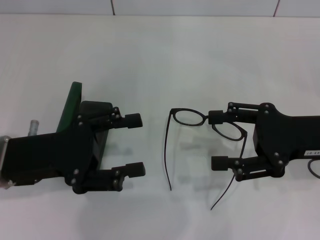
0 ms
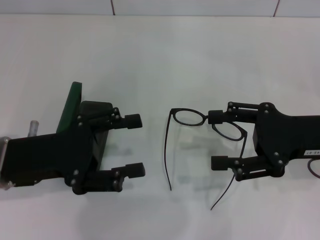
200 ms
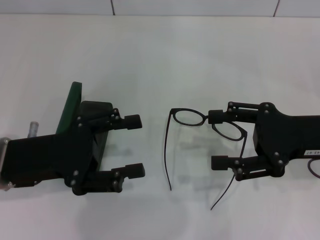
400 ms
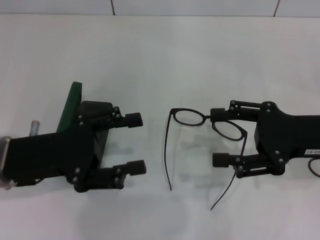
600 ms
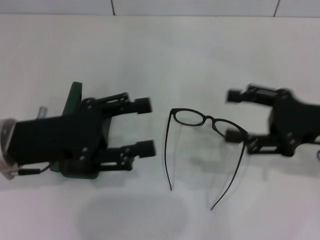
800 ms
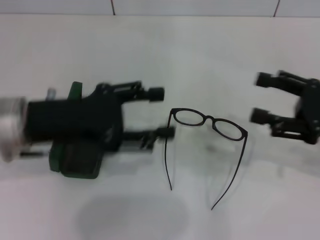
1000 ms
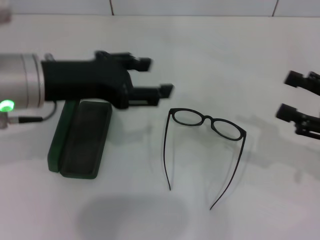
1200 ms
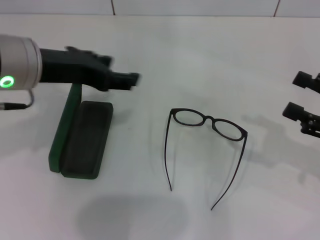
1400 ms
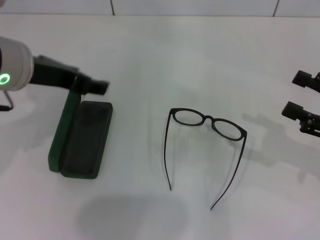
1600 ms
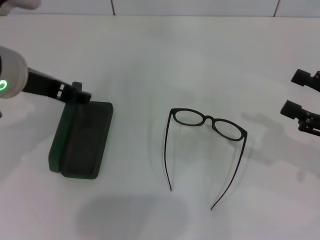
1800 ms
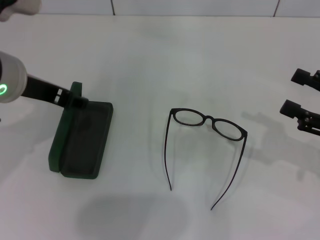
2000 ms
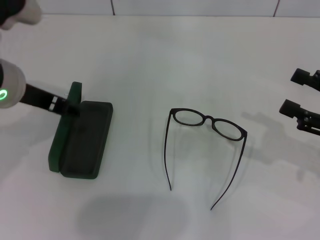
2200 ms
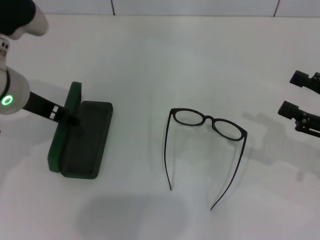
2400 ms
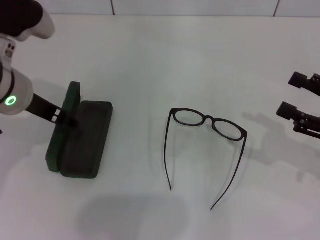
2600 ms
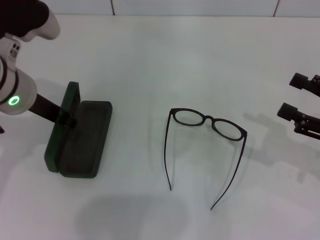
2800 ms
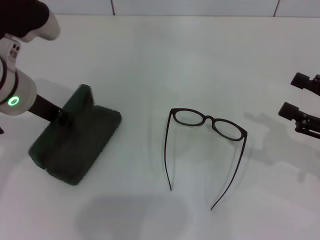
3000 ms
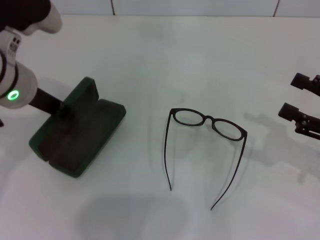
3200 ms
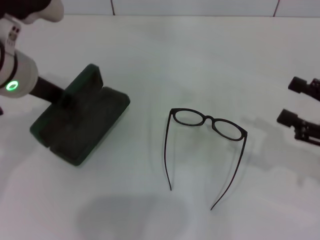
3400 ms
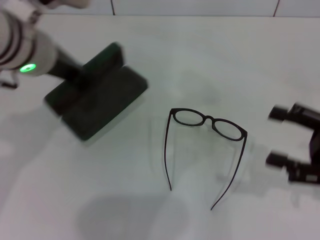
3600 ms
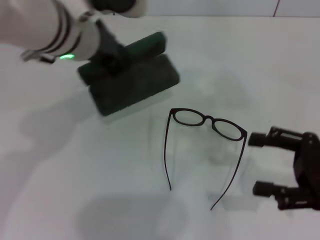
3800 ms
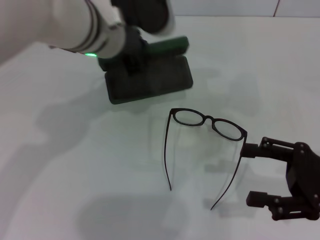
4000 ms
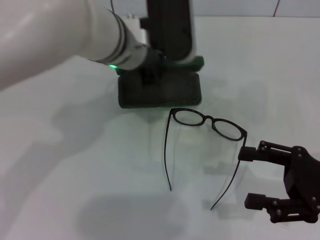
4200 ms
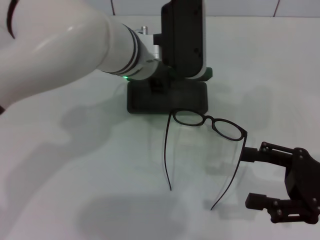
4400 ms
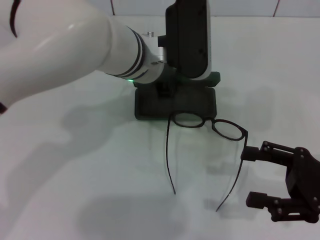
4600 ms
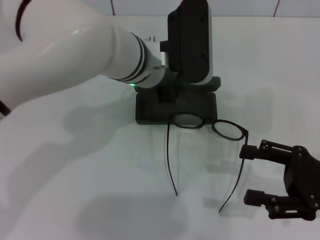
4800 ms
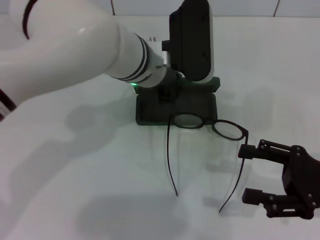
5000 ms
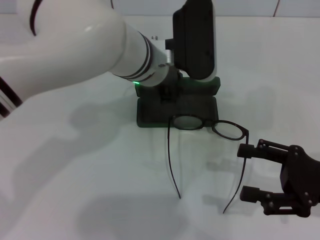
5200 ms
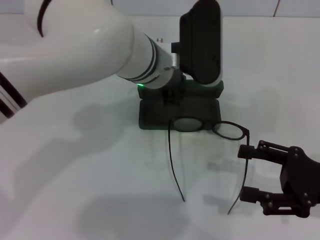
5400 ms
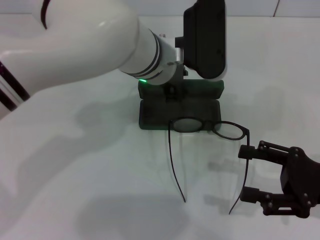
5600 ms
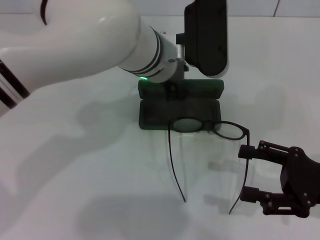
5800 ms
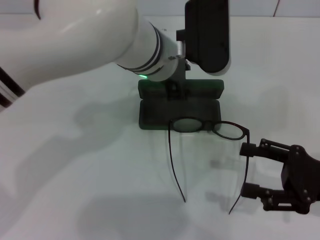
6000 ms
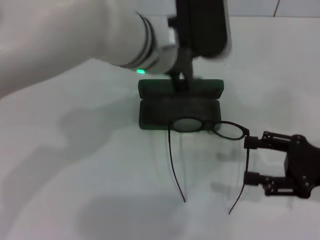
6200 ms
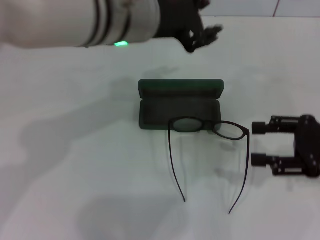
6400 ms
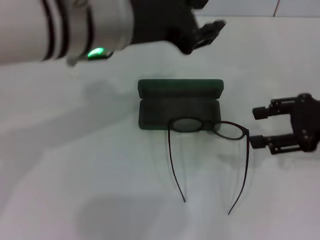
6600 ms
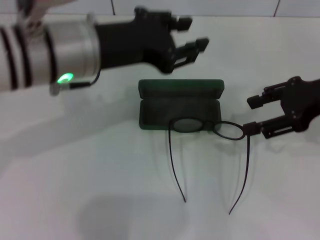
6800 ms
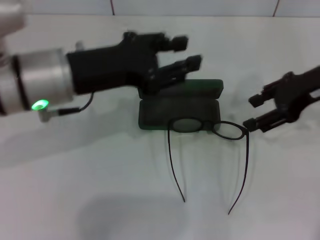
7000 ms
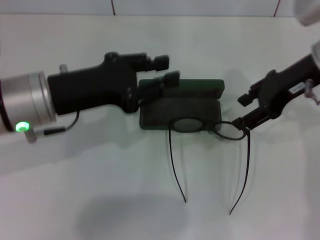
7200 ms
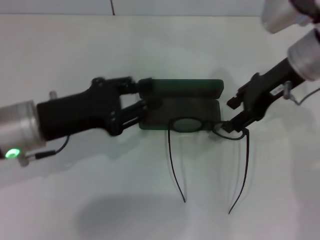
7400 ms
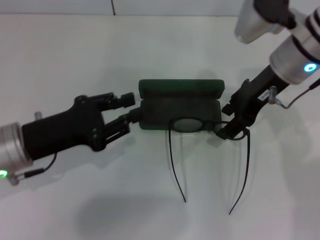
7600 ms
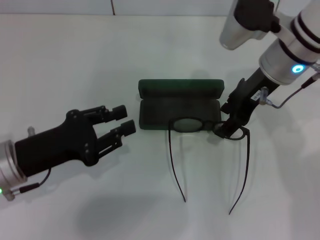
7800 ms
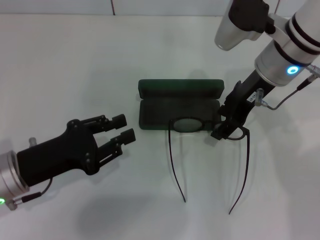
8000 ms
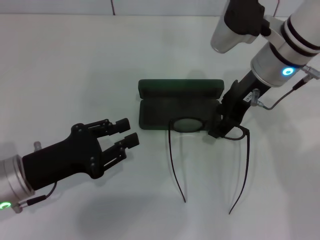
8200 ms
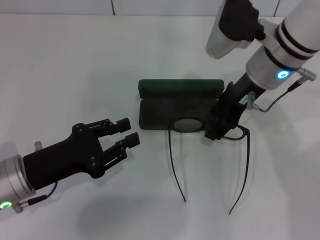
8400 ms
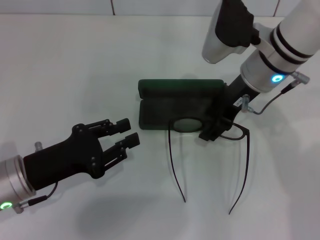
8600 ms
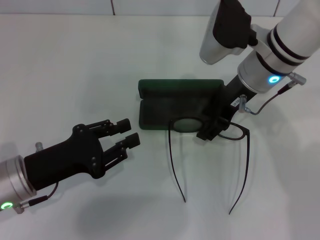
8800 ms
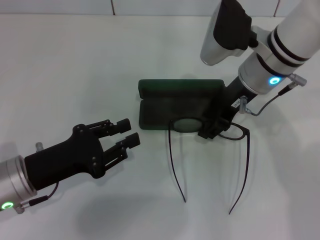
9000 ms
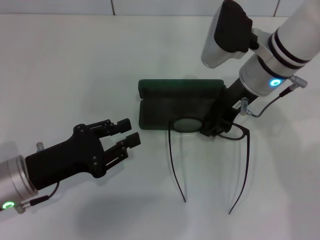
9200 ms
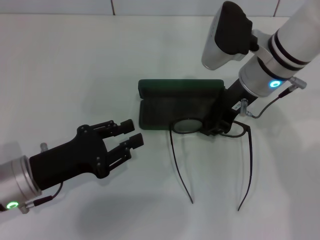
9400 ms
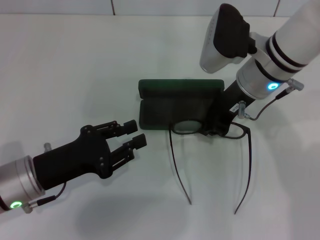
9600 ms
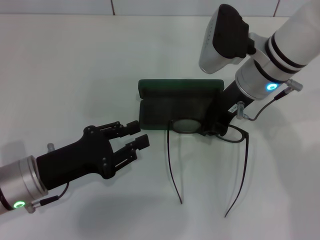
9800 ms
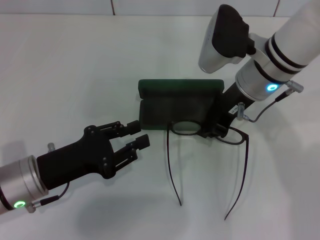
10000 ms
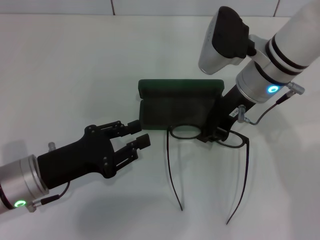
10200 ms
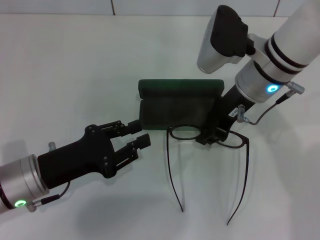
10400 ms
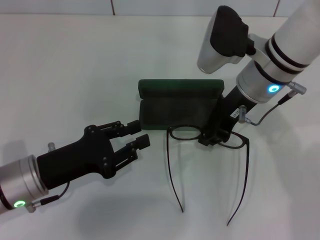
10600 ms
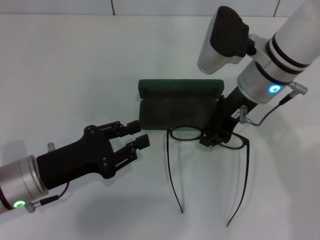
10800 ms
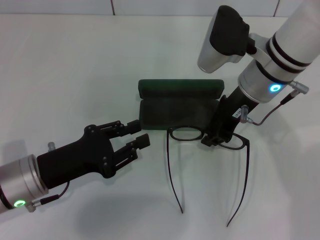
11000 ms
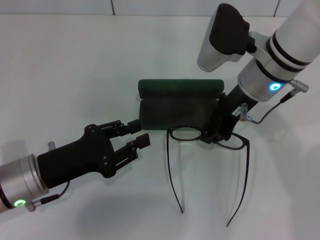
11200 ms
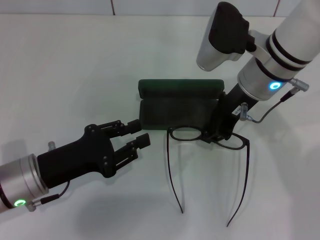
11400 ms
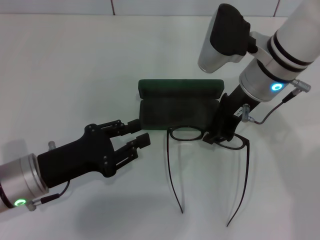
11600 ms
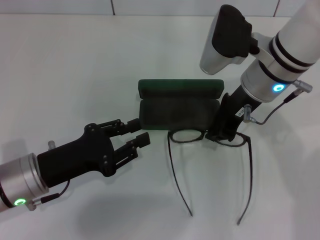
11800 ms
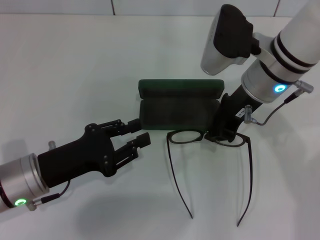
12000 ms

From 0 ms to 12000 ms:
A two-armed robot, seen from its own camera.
Step, from 0 ms to 2800 ms: Grab the glasses case with your left hand.
Step, from 3000 ms to 6000 ms: Place the glasses case in the center of the table with your left hand.
Step, from 6200 ms to 10000 ms: Grab the eyeglass frame with your right hand.
From 0 ms to 1600 ms: The left gripper travels upward and forward by some 15 cm, while the right gripper travels to the right by some 10 cm.
From 1600 ms to 3000 ms: The left gripper closes its fingers.
From 3000 ms to 4400 ms: The right gripper moves about 5 cm, while the left gripper travels to the right by approximately 15 cm.
From 4400 ms to 6000 ms: There are only small adjustments of the grippers.
From 6000 ms to 7600 ms: The right gripper heads forward, to the left and upward, covering about 25 cm, while the left gripper goes approximately 25 cm to the left, backward and downward.
From 9000 ms to 10400 ms: The right gripper closes up.
From 10400 ms to 12000 ms: Both grippers stay put.

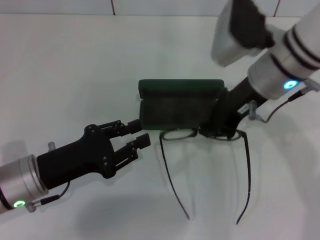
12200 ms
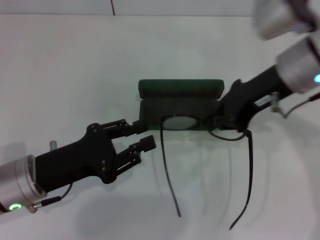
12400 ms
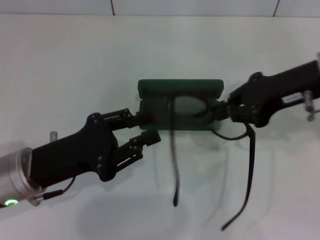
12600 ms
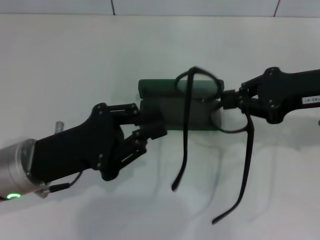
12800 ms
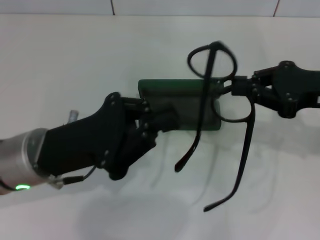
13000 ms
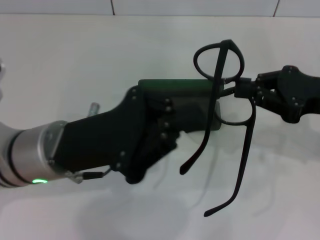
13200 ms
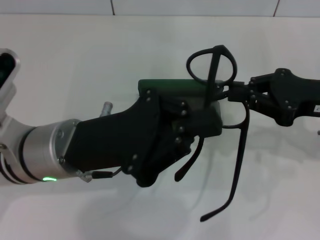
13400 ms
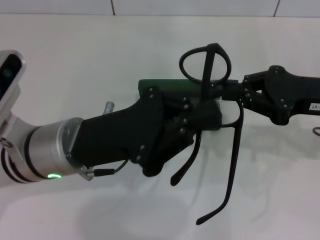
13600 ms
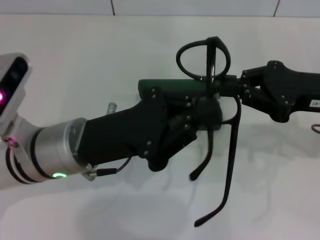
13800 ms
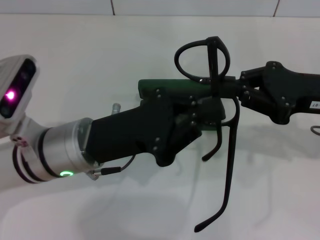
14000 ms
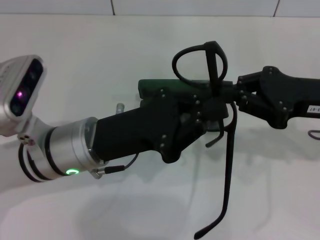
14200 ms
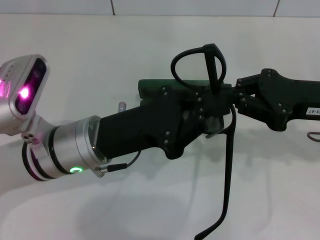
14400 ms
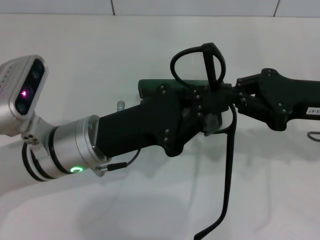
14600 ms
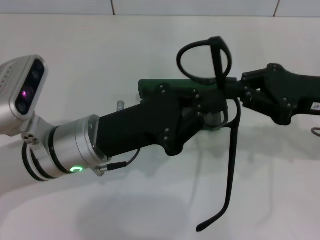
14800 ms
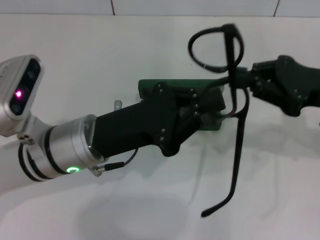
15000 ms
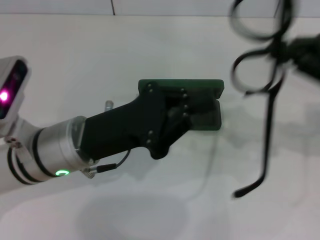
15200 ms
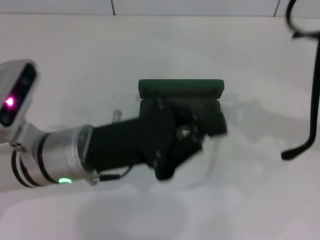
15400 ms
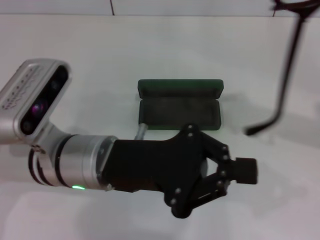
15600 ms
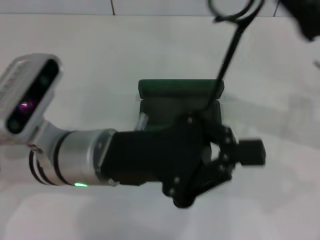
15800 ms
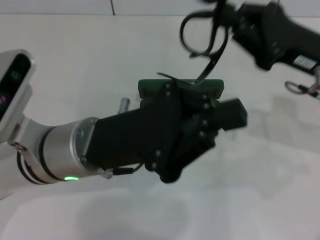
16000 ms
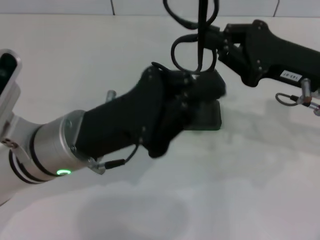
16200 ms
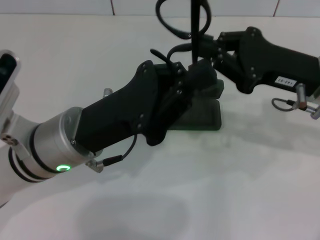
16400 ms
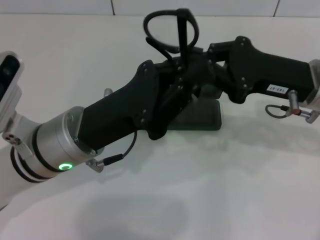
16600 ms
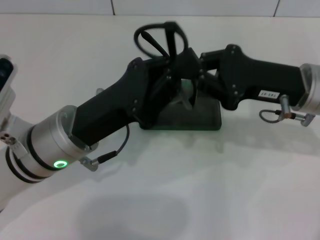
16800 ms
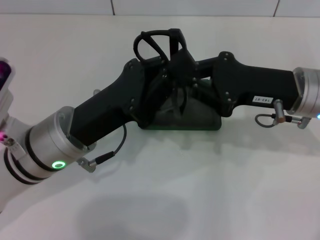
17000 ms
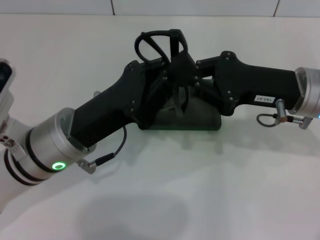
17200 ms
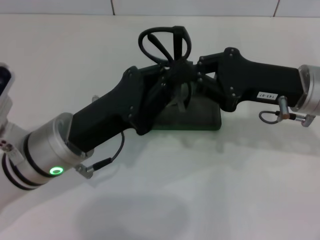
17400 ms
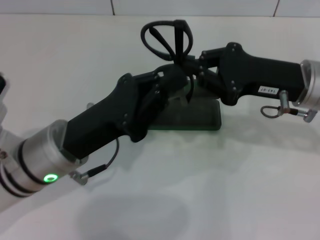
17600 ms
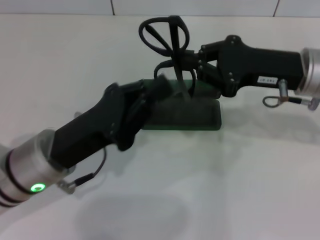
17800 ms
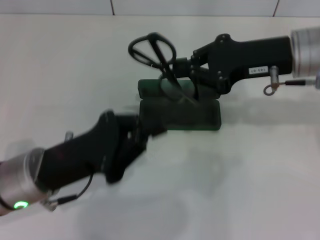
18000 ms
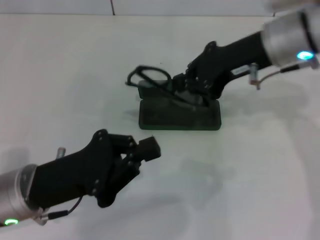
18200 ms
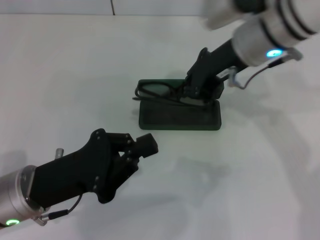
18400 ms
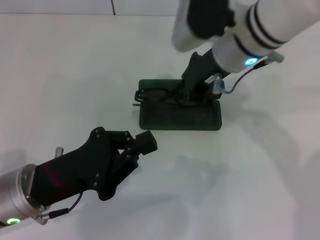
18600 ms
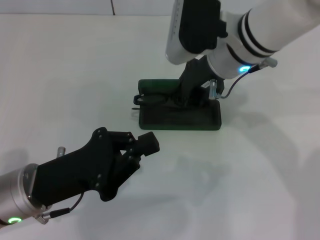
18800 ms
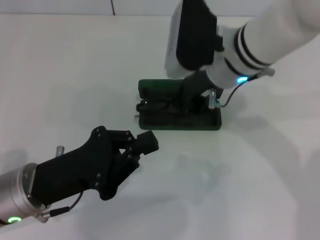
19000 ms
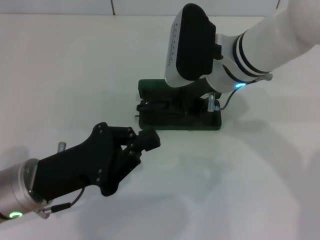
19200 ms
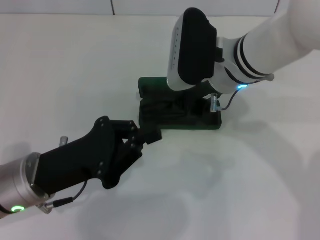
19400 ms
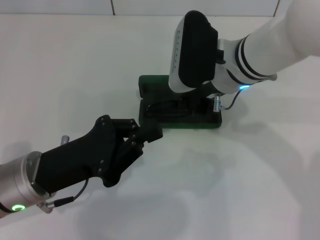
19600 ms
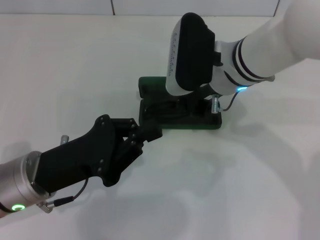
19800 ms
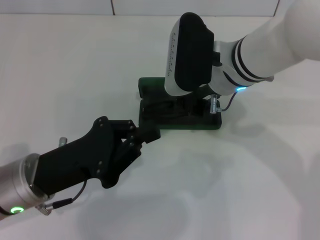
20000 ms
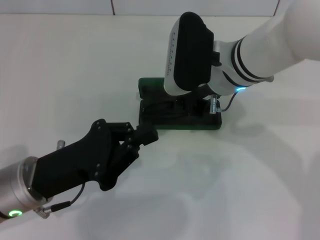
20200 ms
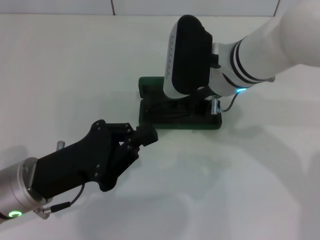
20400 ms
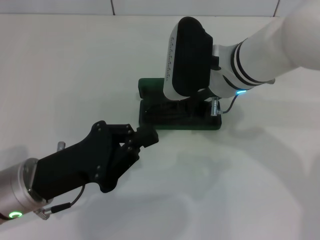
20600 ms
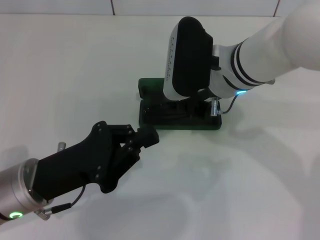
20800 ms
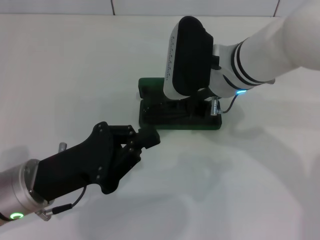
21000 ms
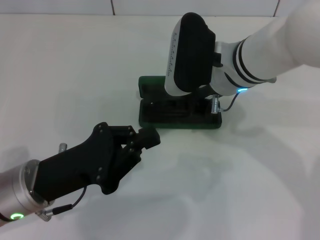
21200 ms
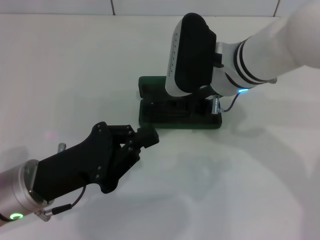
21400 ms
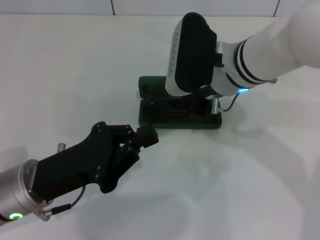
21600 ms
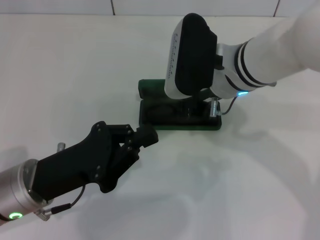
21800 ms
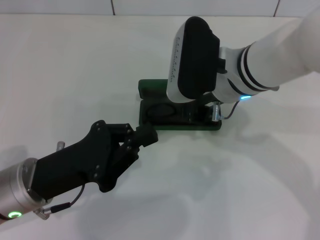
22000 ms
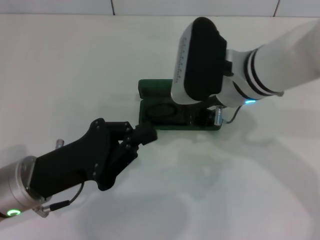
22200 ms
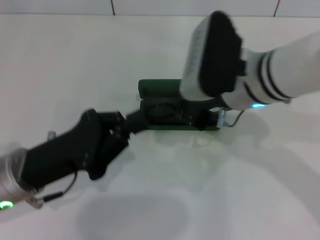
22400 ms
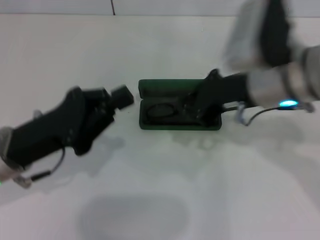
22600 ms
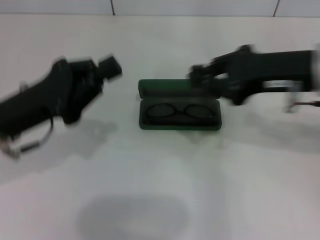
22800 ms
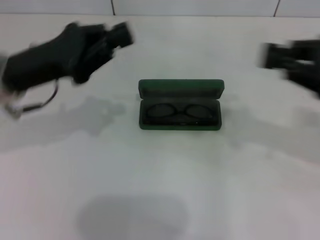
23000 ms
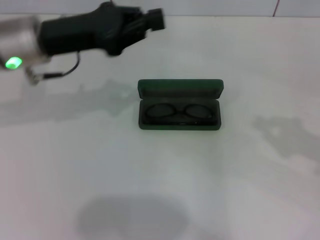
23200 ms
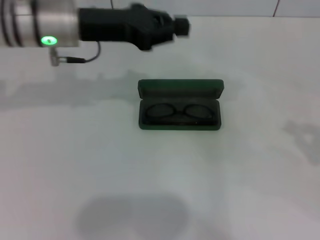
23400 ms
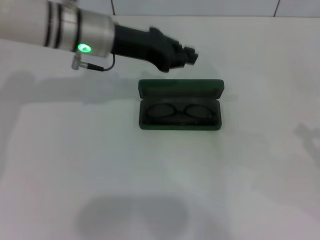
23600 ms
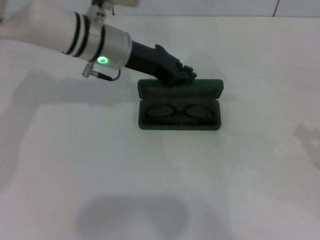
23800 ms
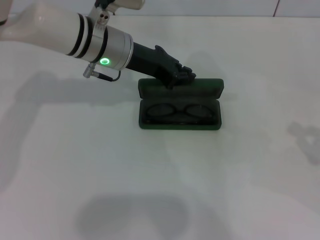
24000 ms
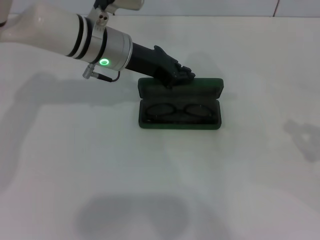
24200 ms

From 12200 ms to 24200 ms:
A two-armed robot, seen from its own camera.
Step, from 12200 ms to 17400 ms: Fold the frame with your left hand.
Step, from 17600 ms to 20600 ms: Put the glasses into the case with your right hand.
From 12200 ms to 13800 ms: The left gripper heads to the right and upward, covering about 10 cm, and closes up; the right gripper travels to the right and backward by approximately 15 cm.
From 15200 ms to 16600 ms: The right gripper shifts about 10 cm to the left.
From 16600 ms to 18200 ms: The left gripper moves to the left, approximately 5 cm. The right gripper shifts approximately 10 cm upward and to the left.
From 18200 ms to 19800 ms: The right gripper travels to the left and downward by roughly 10 cm.
From 19800 ms to 21200 ms: Both grippers stay about where they are.
From 21200 ms to 22600 ms: The right gripper shifts some 5 cm to the right.
From 22600 ms to 24200 ms: The right gripper is displaced to the right by roughly 25 cm. Meanwhile the left gripper goes about 20 cm forward and to the right.
